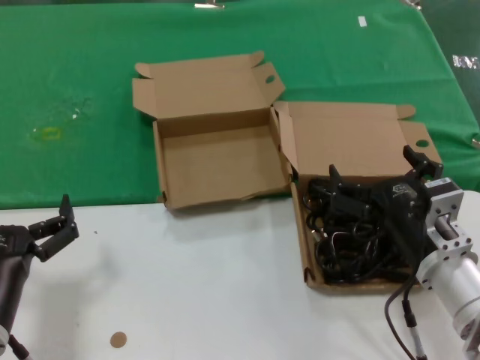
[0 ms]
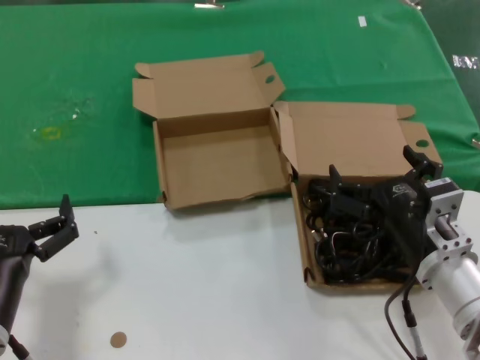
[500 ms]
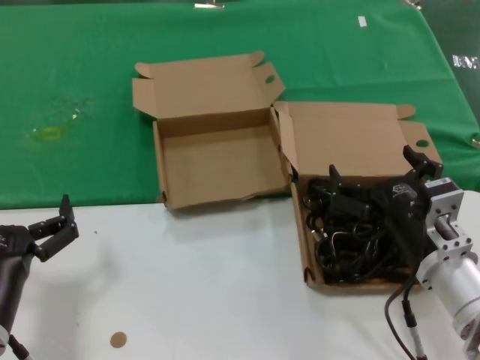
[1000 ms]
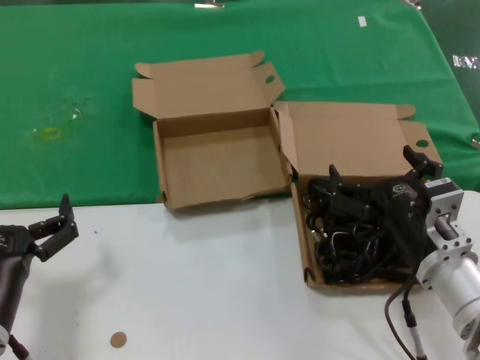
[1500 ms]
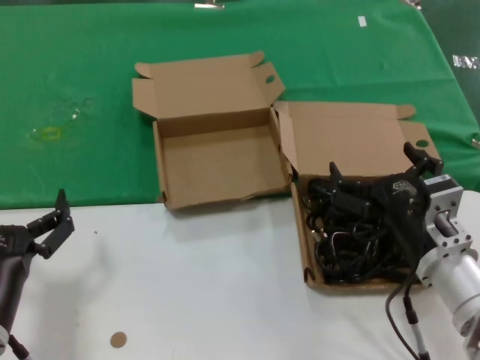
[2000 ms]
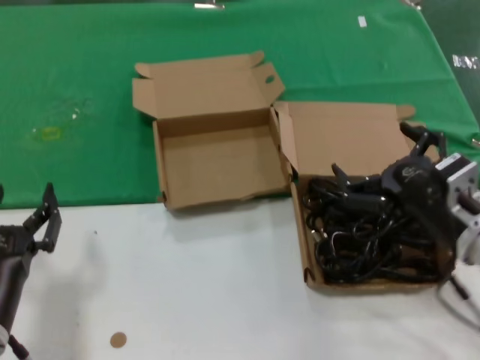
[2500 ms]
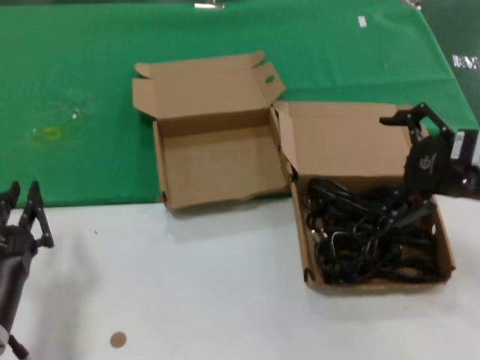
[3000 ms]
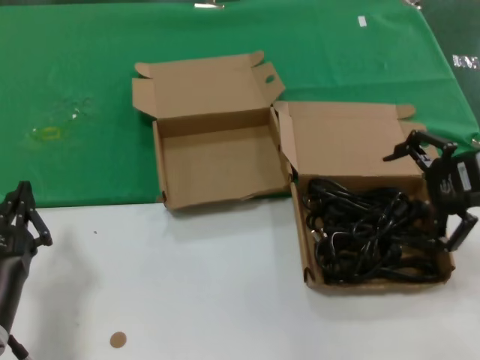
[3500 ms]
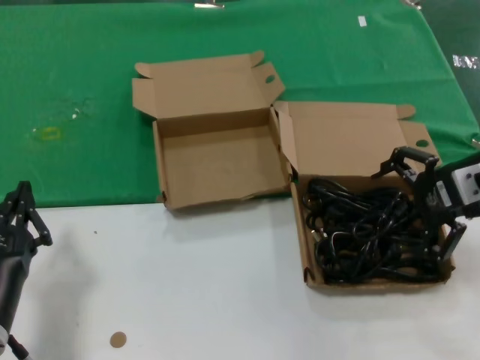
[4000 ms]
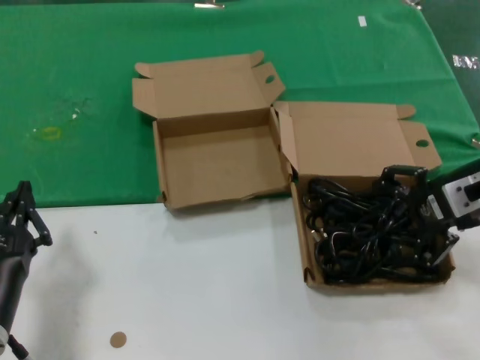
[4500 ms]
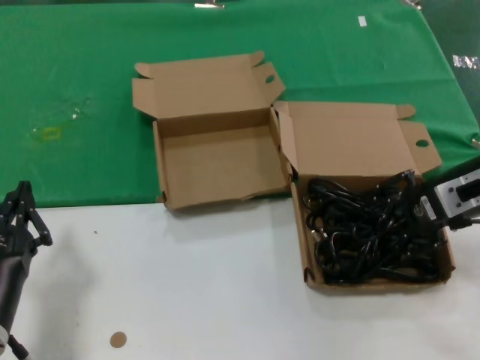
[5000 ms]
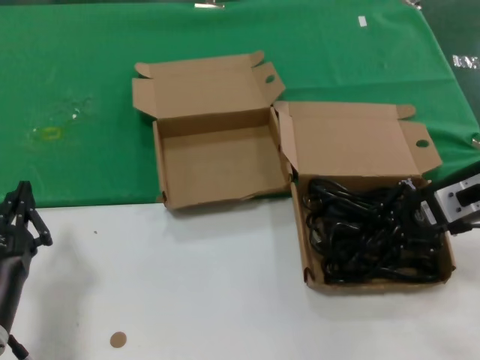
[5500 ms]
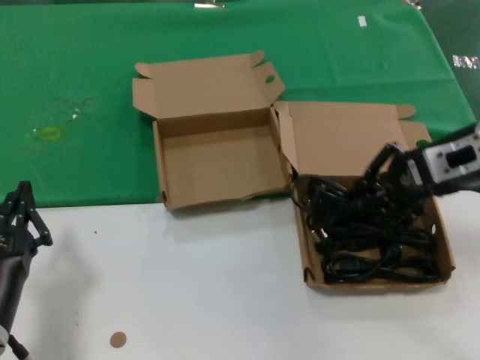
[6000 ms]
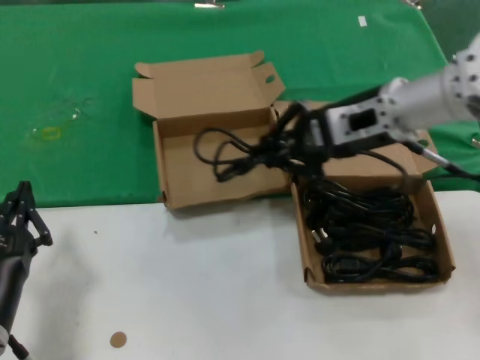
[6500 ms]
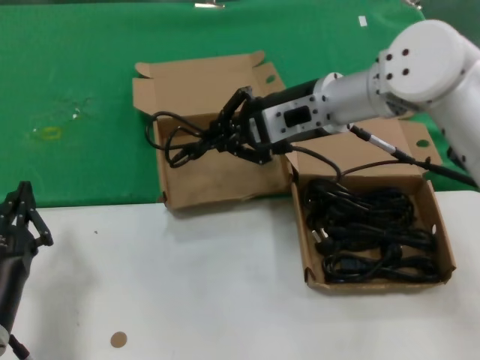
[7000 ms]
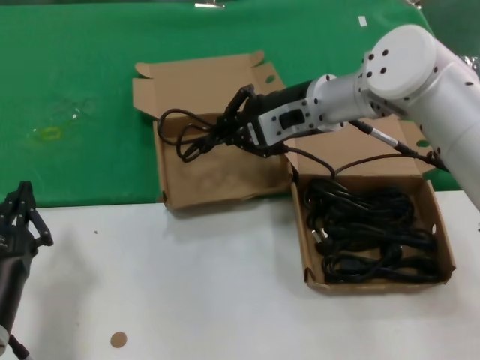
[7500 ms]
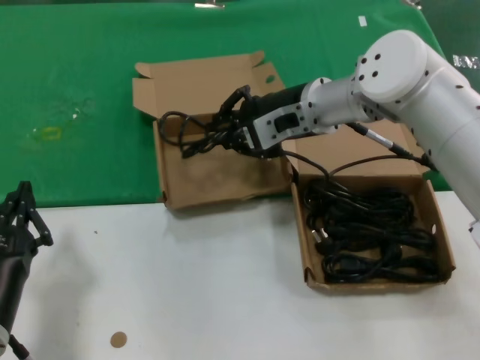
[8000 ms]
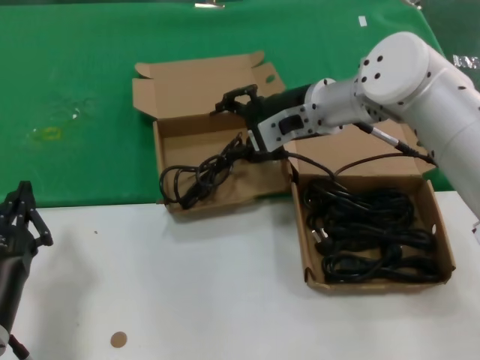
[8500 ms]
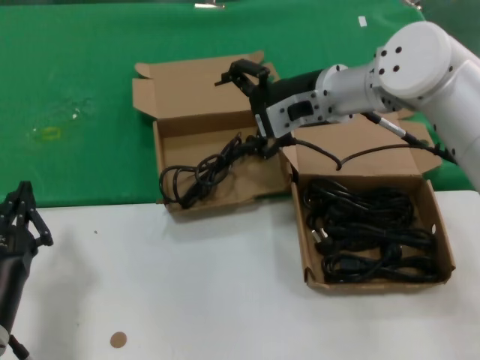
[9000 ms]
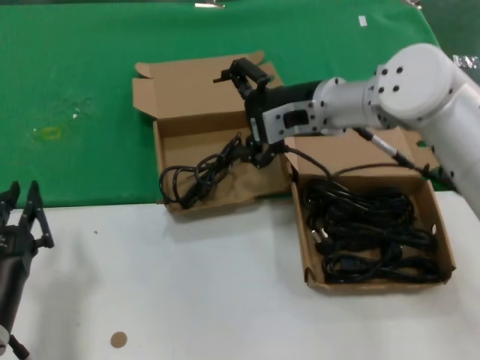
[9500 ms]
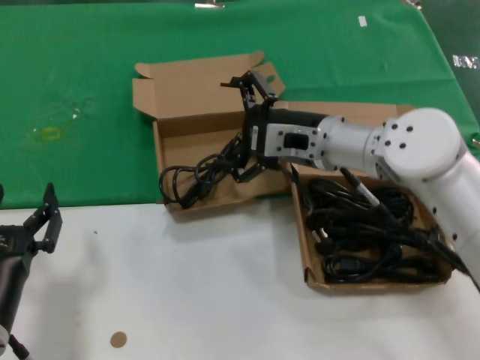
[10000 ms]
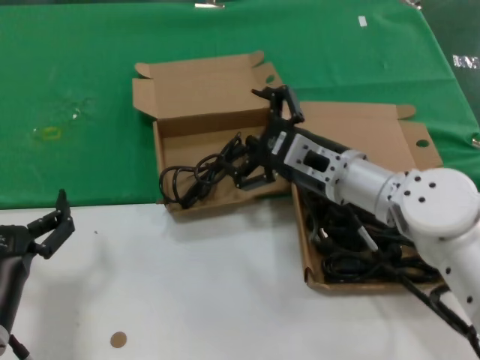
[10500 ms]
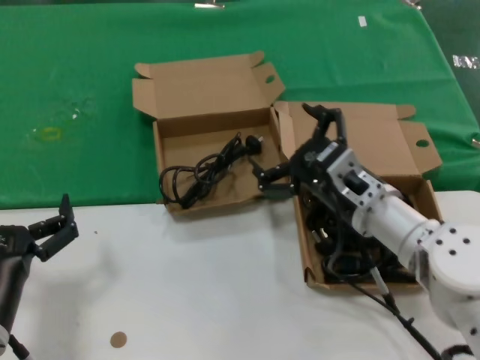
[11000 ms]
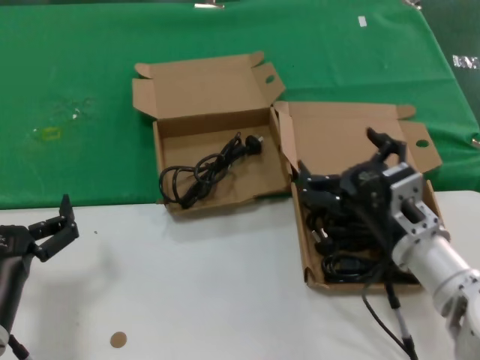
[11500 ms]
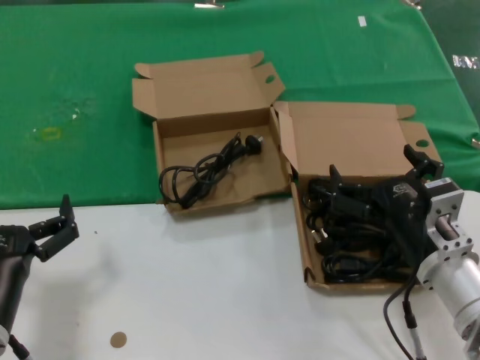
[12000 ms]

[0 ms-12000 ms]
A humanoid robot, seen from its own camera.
Task of the whole recording: take the parts from the box containing them and put them into an empty box.
Step, 0 ms to 5000 ms: Grasp the data cable.
Step, 5500 ms to 8000 ms: Place the data cable in the another box.
0 ms to 2000 ms: Both hands stay put.
2000 ms to 4000 ms: The right hand travels upward, to the right and forward by approximately 20 cm.
4000 ms to 6000 ms: The hands make only small movements.
6000 ms to 8000 ms: The right hand is displaced to the left and forward by about 20 cm.
8000 ms to 10000 ms: The right hand travels downward by some 5 cm.
10000 ms to 12000 ms: The right hand shifts approximately 25 cm backward, downward and to the right.

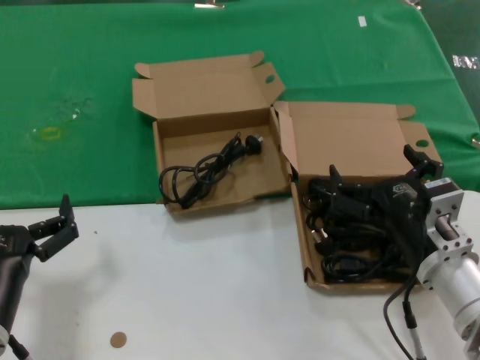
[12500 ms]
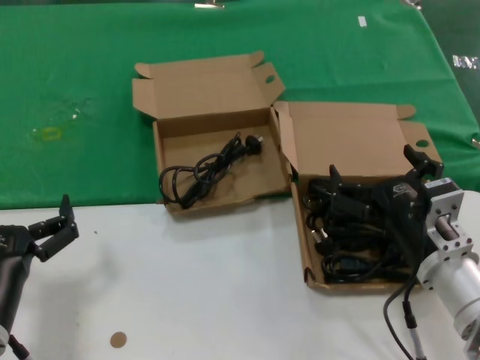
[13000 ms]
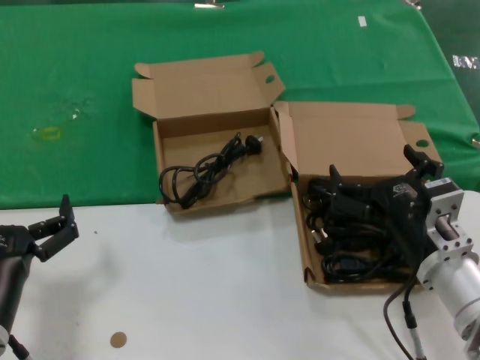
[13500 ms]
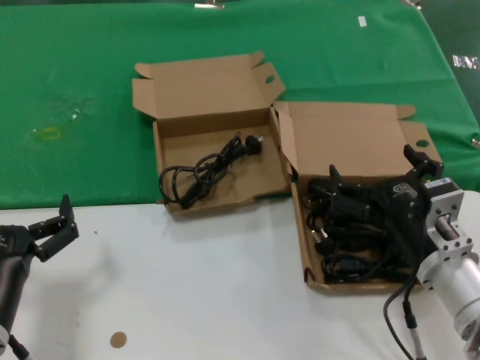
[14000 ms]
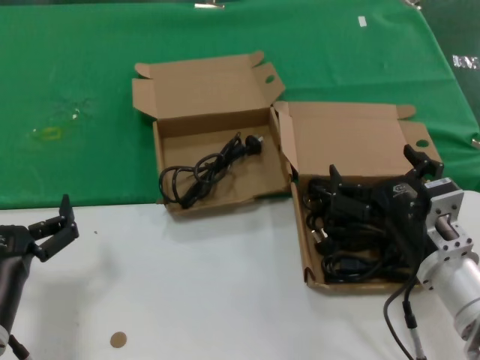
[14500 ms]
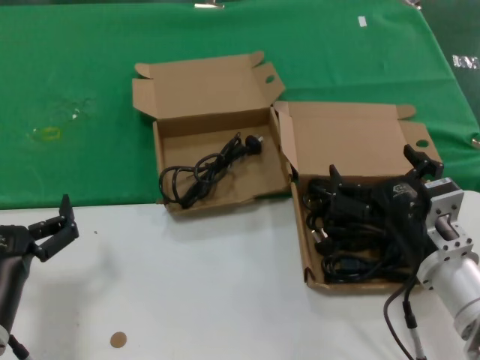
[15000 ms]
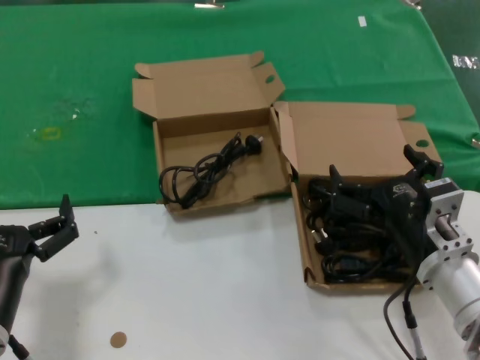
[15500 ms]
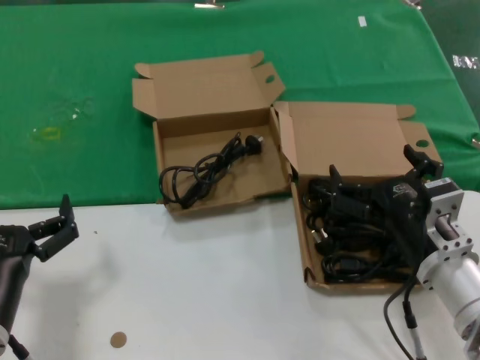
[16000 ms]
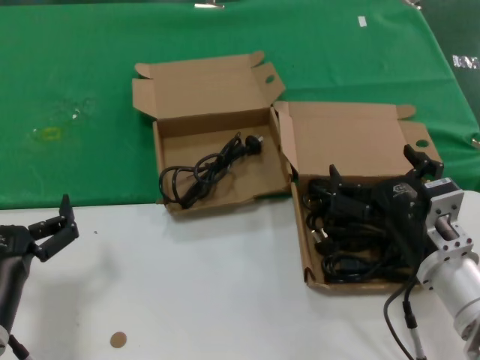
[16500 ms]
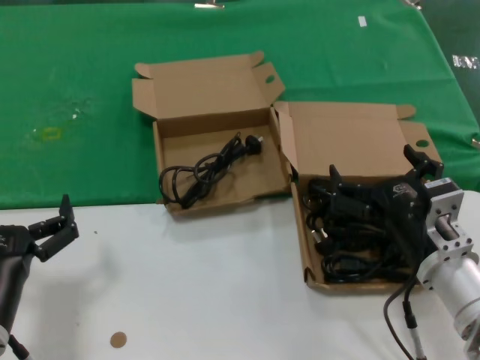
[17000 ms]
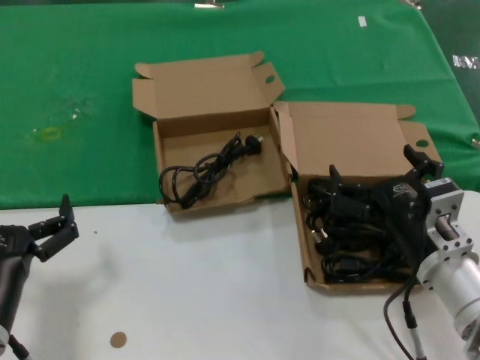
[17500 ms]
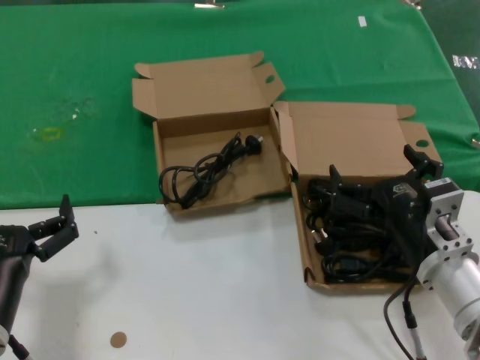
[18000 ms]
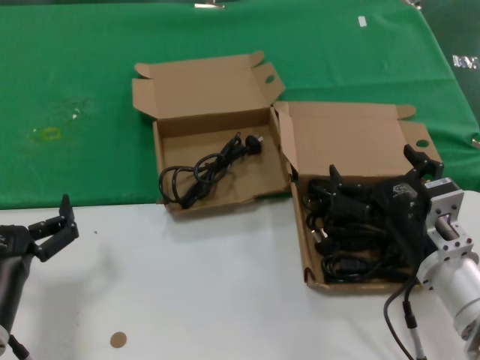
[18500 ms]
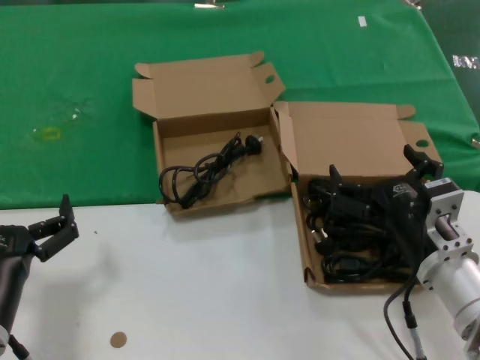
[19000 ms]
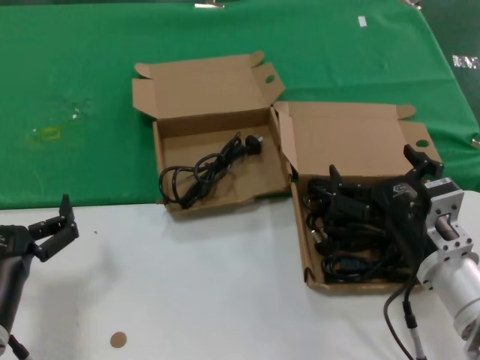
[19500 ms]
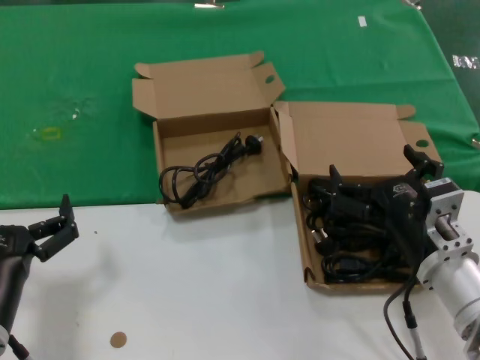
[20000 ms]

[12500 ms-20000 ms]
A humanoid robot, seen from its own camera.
Task of the whole recording: take the parts from the box containing them and put them into an empty box.
12500 ms to 20000 ms: Both hands stay put.

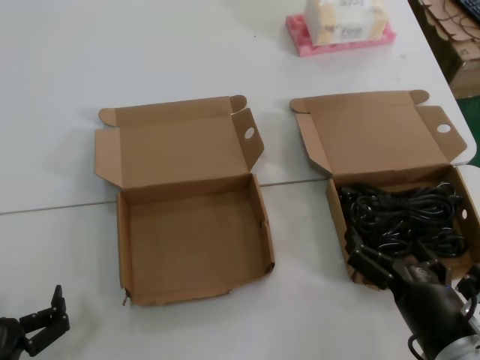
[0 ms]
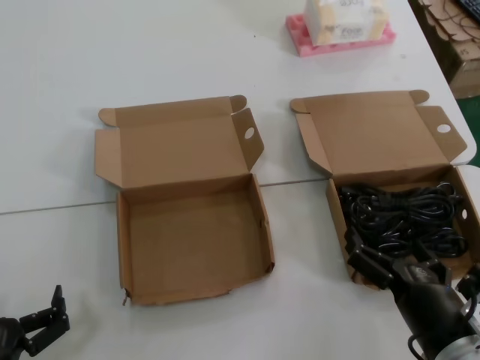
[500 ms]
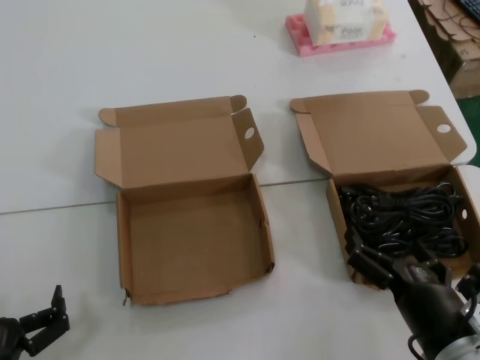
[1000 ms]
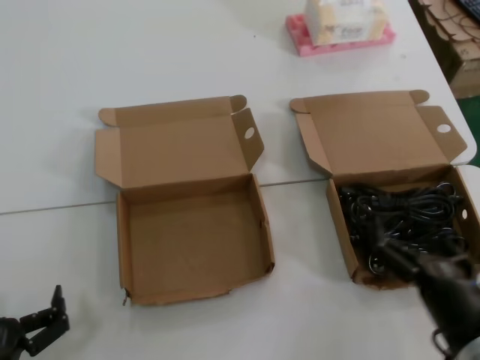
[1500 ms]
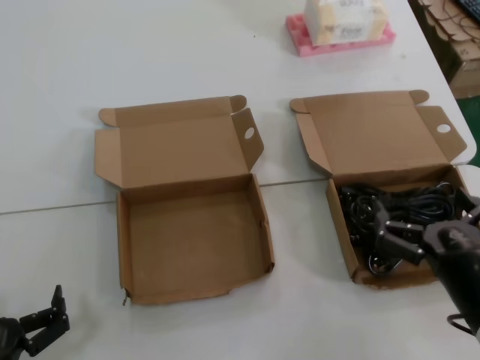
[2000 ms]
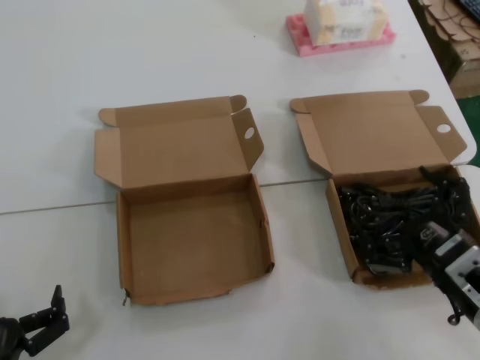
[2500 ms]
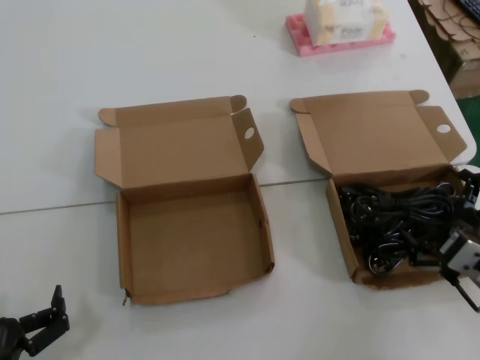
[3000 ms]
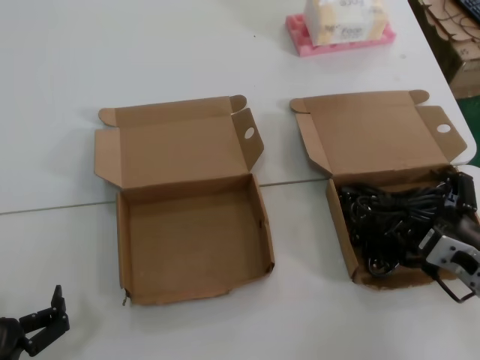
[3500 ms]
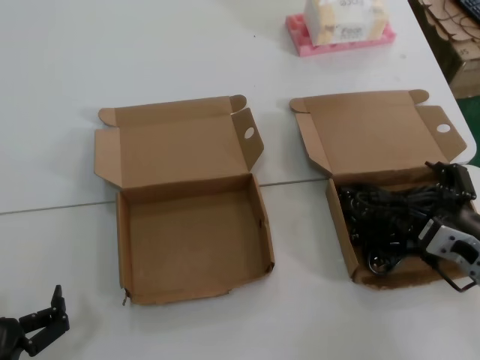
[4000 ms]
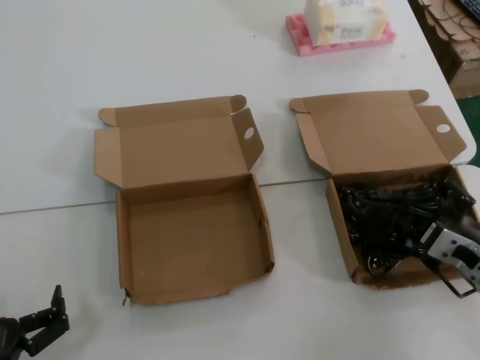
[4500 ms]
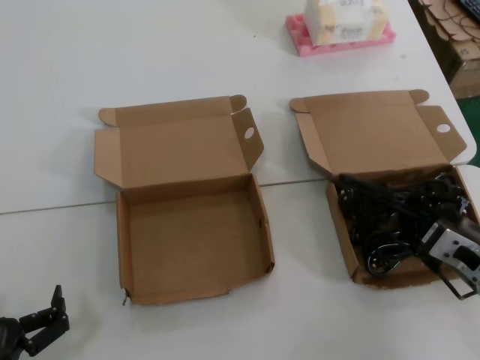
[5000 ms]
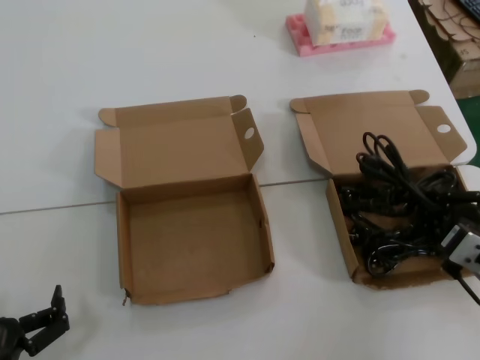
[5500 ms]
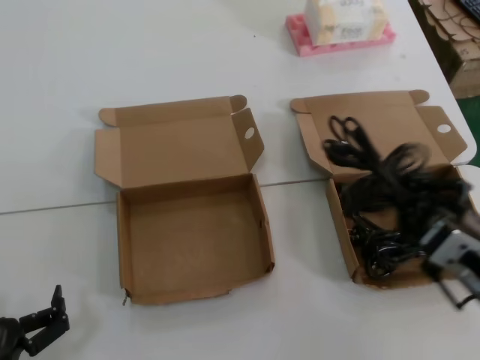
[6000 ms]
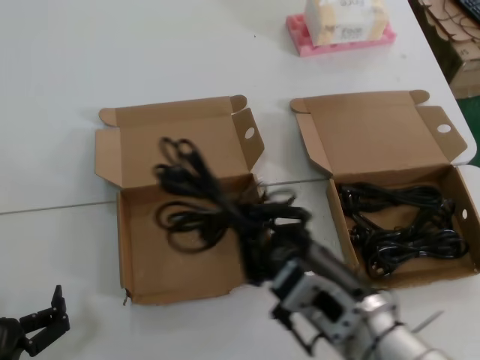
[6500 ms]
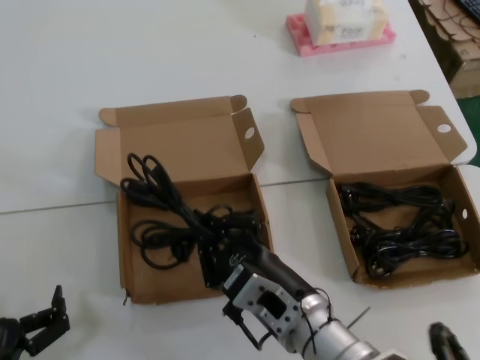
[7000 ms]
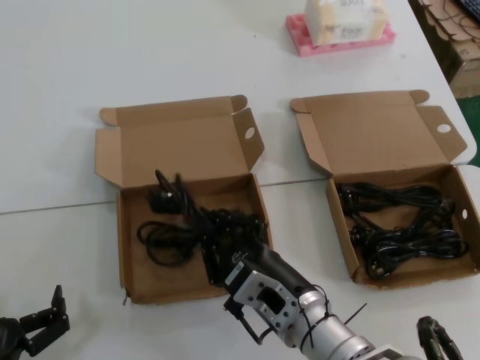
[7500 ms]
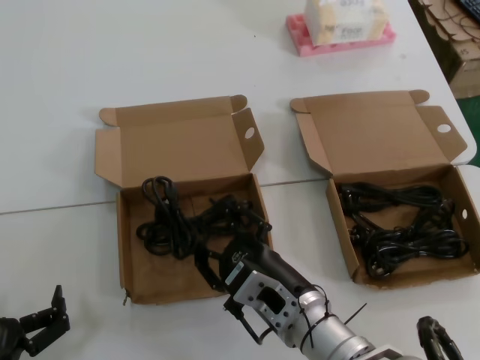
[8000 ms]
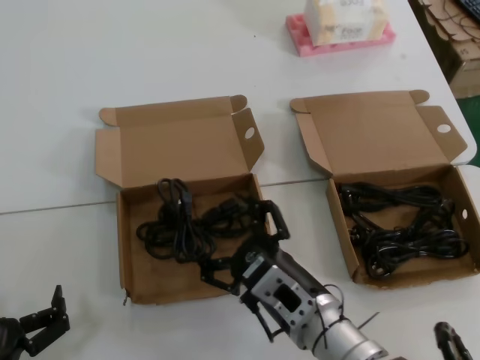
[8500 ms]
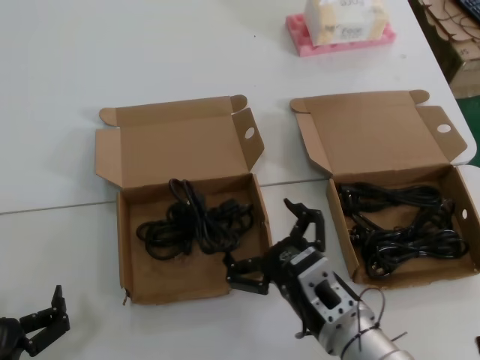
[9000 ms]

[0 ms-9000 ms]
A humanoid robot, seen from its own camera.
Task of the whole recording: take the parts from the box containing them and put them into an empty box.
Step, 0 ms to 4500 ms: Grasp the data cable.
Step, 5000 ms to 7500 ms: Place the data cable in the another box.
0 ms to 2000 ms: The right hand moves upward, roughly 5 cm.
2000 ms to 4500 ms: The right hand is displaced forward and to the right by approximately 10 cm.
4500 ms to 7000 ms: The right hand is displaced to the left by approximately 25 cm.
